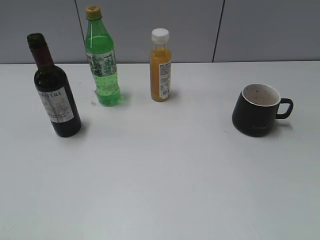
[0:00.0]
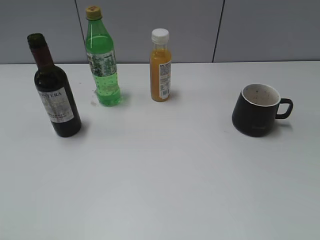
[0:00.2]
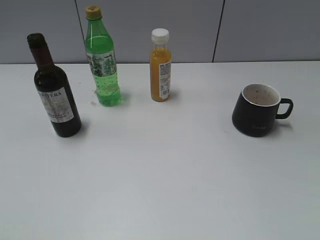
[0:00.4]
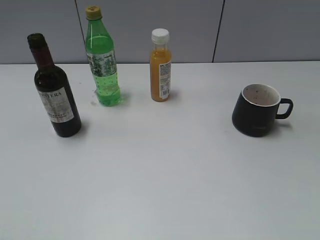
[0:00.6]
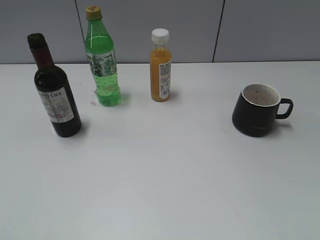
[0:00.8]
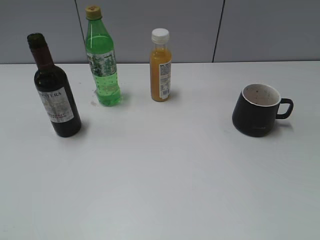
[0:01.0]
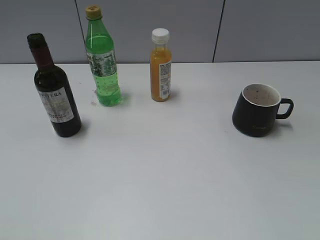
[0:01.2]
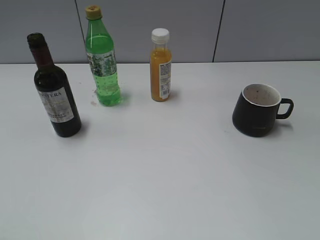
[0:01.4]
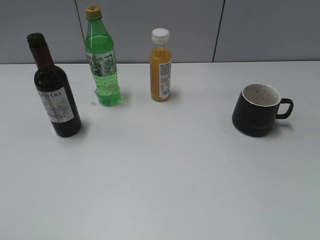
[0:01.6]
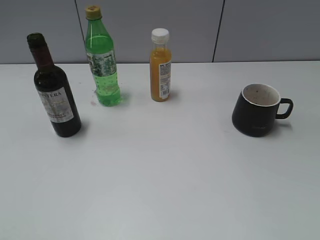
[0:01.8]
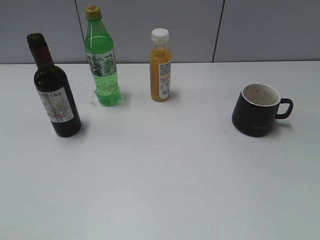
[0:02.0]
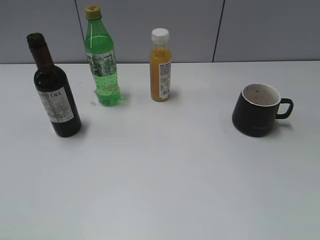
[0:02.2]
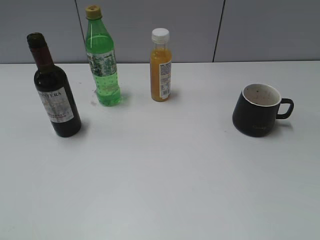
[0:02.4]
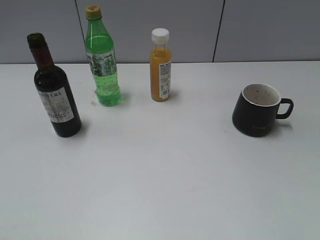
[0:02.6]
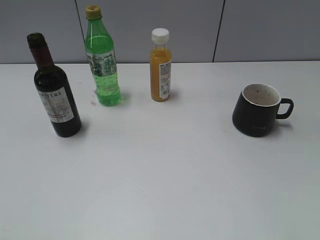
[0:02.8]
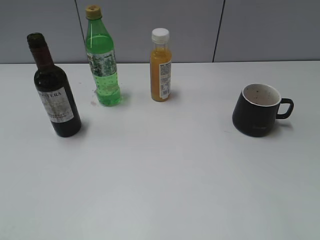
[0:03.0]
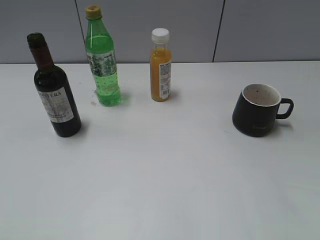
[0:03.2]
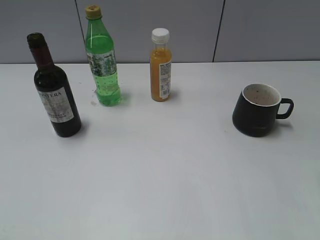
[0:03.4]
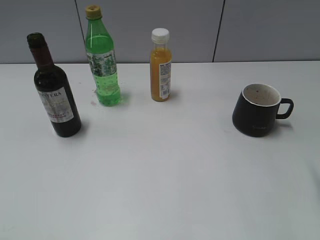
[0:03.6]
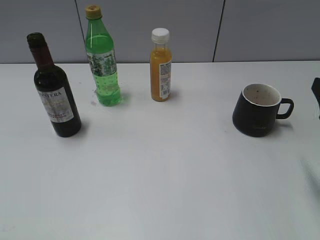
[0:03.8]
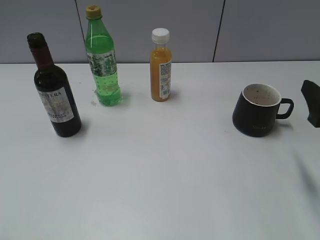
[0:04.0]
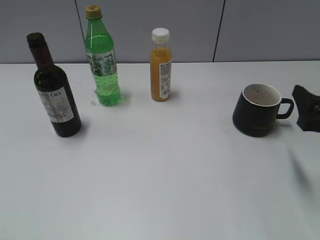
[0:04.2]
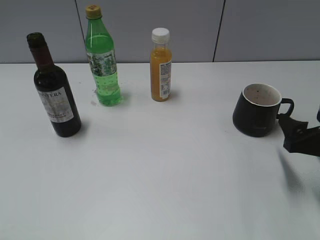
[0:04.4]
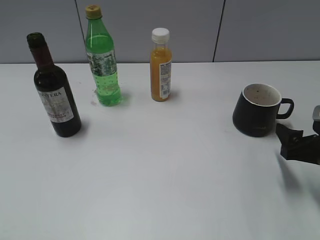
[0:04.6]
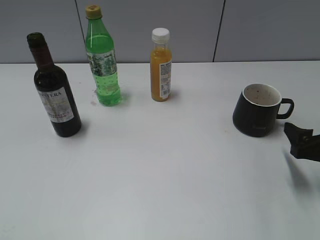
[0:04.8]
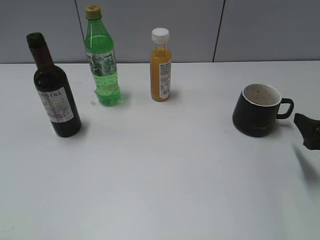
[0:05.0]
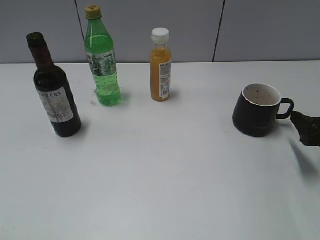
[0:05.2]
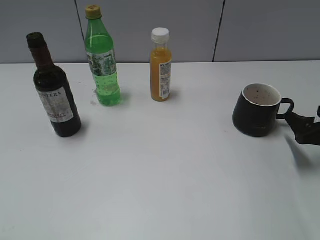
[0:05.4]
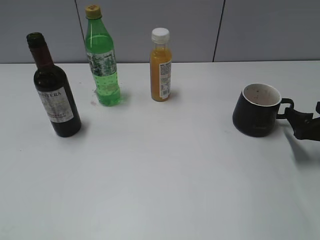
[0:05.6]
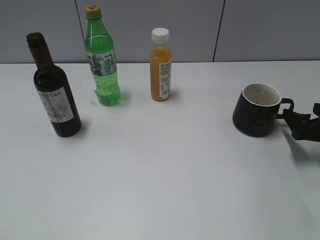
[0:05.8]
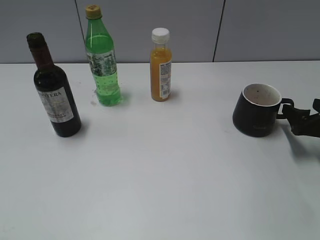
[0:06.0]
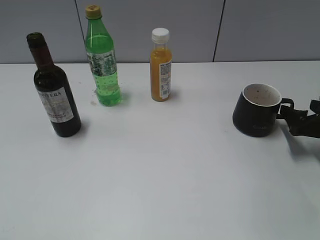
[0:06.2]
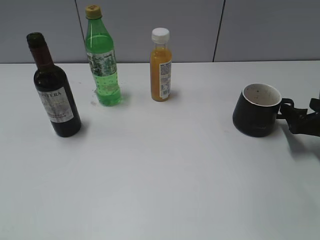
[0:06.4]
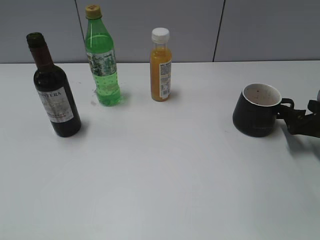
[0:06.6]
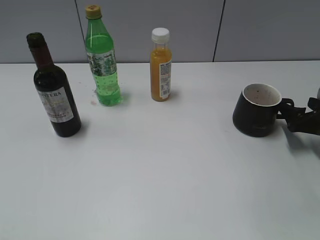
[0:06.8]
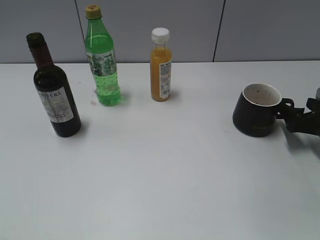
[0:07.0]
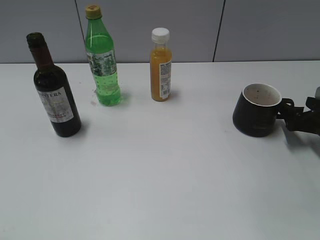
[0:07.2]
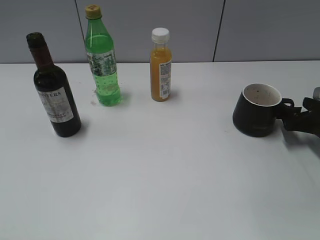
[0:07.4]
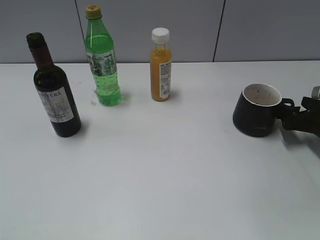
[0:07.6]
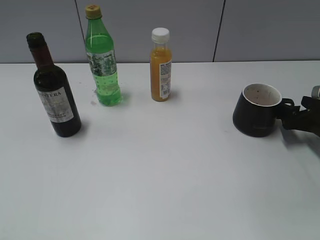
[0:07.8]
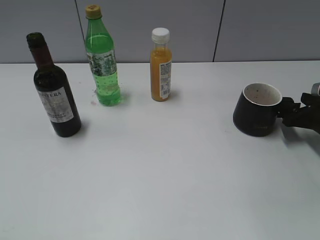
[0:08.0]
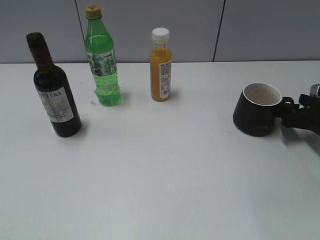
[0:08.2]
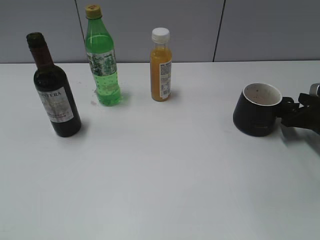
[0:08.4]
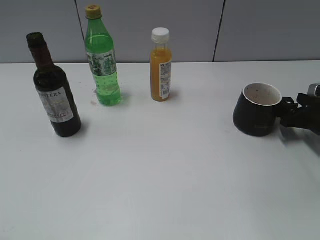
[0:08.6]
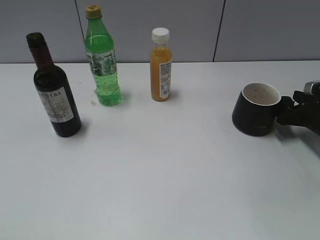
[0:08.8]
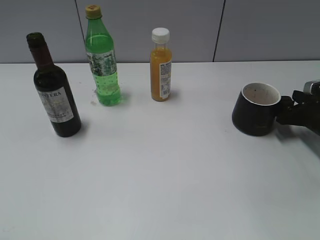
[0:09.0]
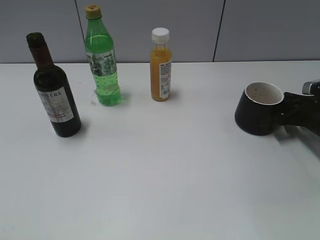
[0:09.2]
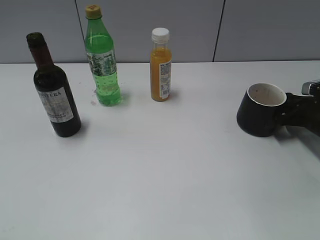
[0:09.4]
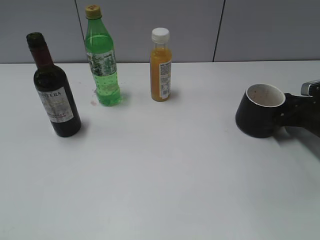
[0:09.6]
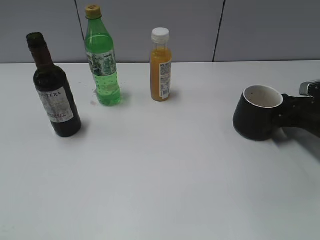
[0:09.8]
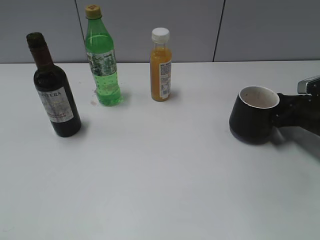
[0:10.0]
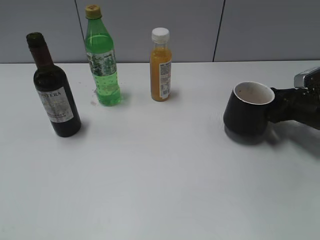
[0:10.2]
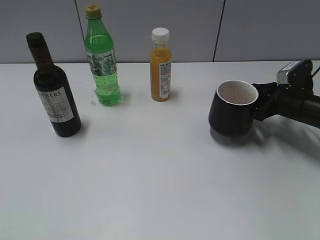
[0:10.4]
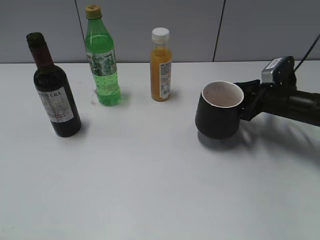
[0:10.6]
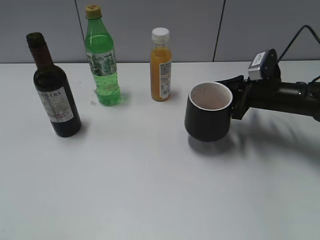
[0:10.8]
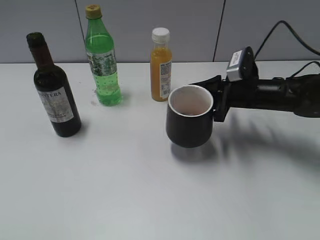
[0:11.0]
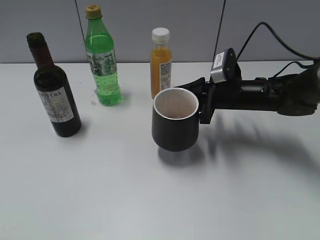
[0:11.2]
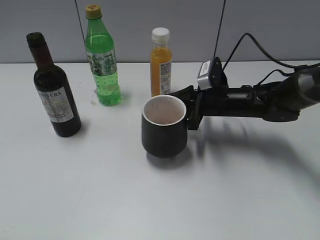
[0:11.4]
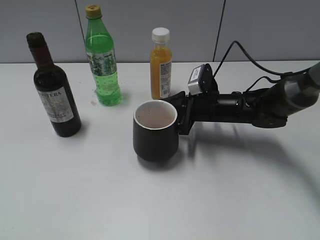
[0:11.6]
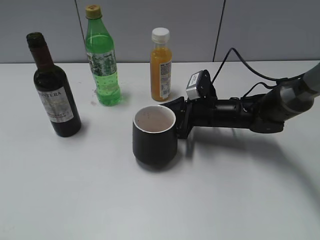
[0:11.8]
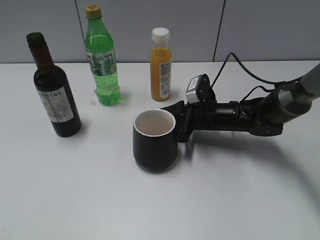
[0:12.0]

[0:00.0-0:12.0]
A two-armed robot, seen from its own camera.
Step, 0:03.8 to 0:09.2: Grasp the black cup with right gripper.
0:03.0 to 0:04.4: The right gripper travels downward and forward by roughly 20 cm.
0:04.4 to 0:06.0: The right gripper is displaced forward and to the right by approximately 10 cm.
0:06.0 to 0:09.0: The grippers stay close to where they were, moving slightly.
0:09.0 to 0:10.4: The right gripper shifts about 5 cm to the left, and closes up.
0:10.4 to 0:12.0: The right gripper shifts roughly 15 cm to the left.

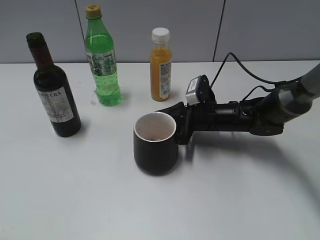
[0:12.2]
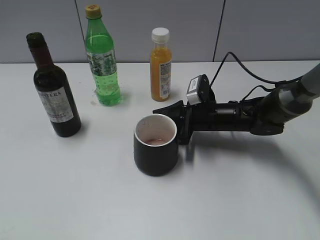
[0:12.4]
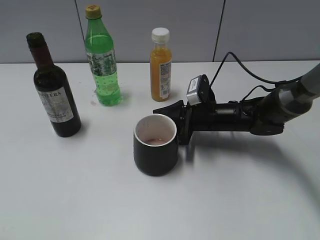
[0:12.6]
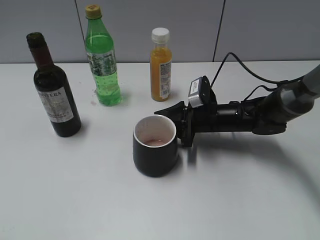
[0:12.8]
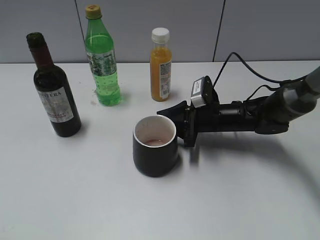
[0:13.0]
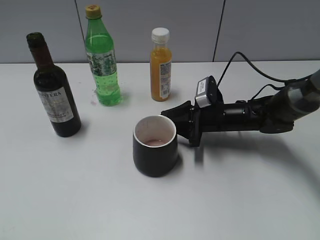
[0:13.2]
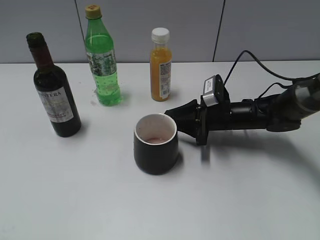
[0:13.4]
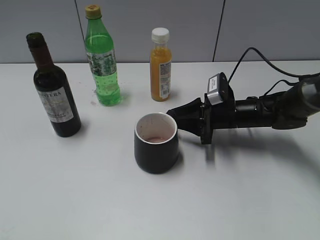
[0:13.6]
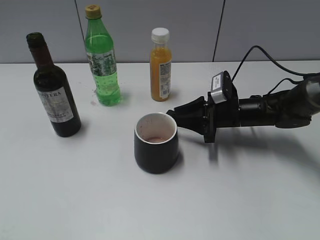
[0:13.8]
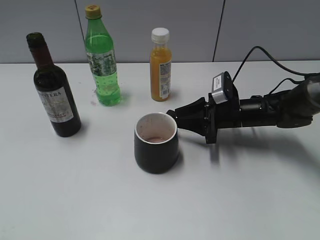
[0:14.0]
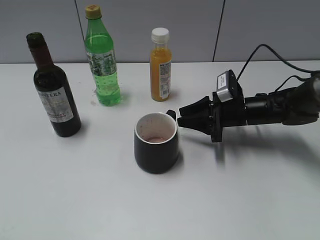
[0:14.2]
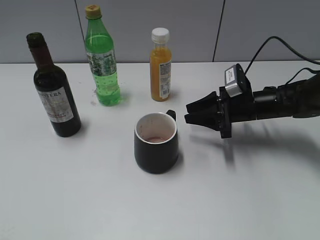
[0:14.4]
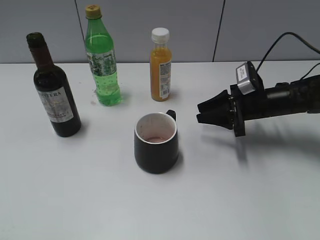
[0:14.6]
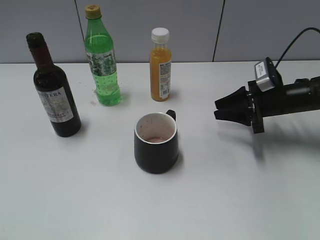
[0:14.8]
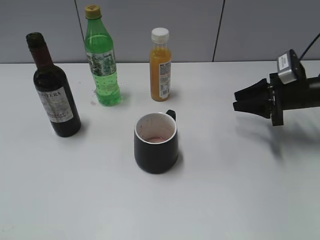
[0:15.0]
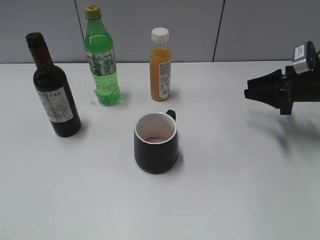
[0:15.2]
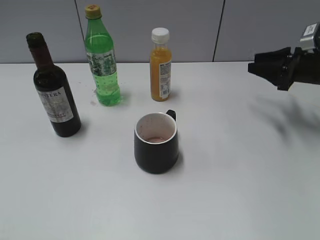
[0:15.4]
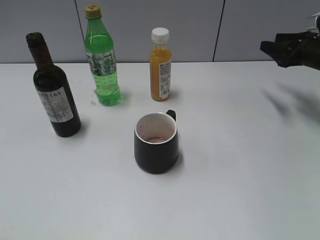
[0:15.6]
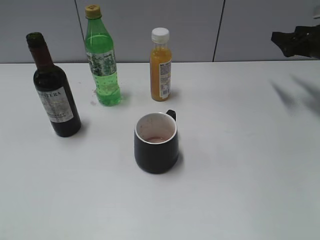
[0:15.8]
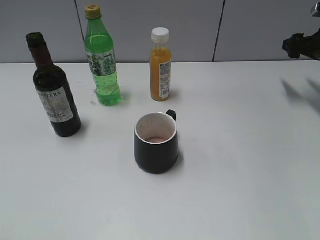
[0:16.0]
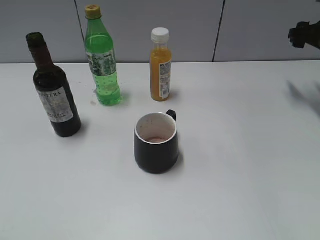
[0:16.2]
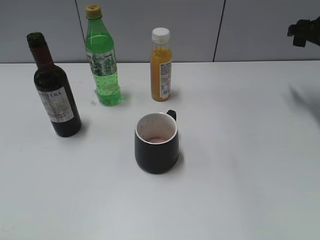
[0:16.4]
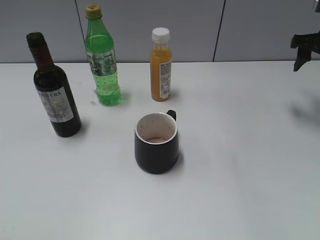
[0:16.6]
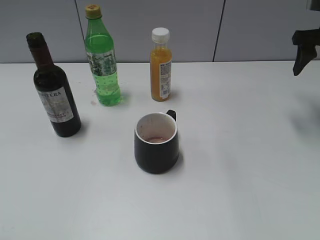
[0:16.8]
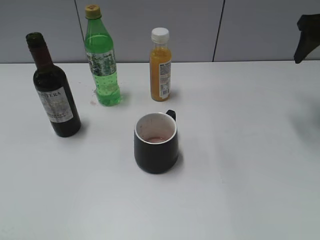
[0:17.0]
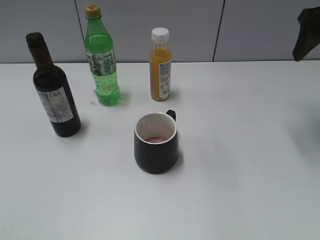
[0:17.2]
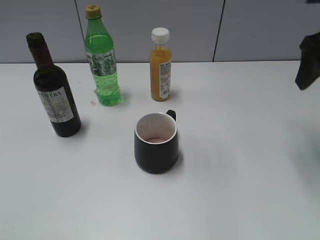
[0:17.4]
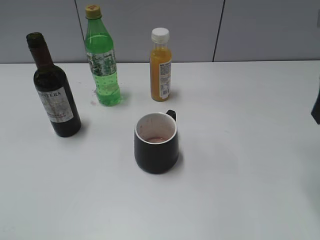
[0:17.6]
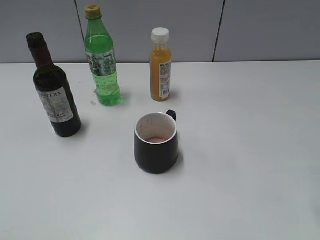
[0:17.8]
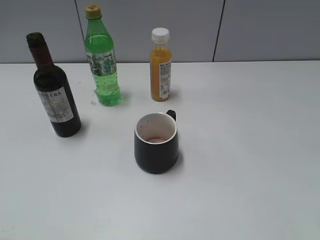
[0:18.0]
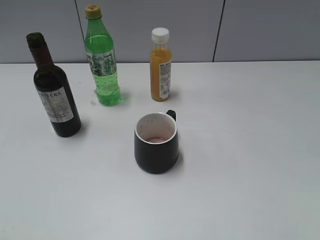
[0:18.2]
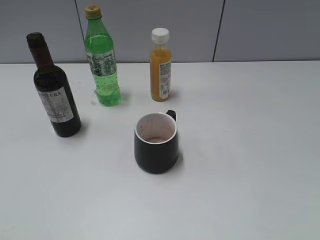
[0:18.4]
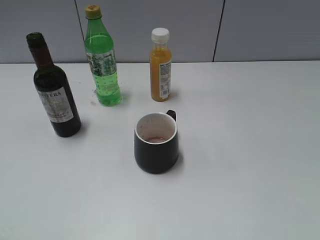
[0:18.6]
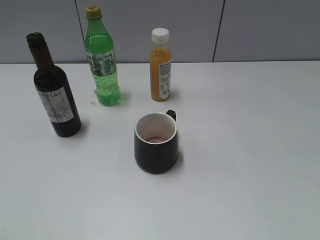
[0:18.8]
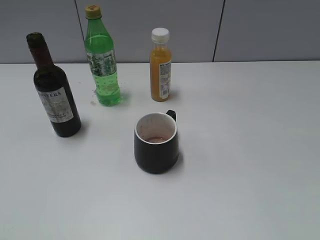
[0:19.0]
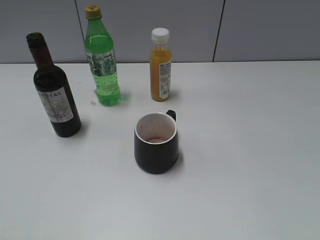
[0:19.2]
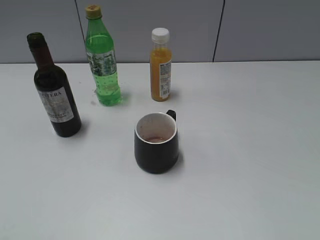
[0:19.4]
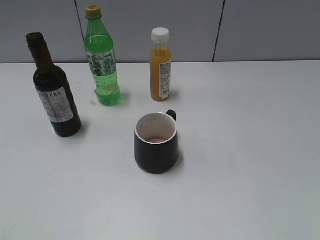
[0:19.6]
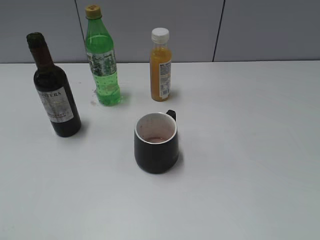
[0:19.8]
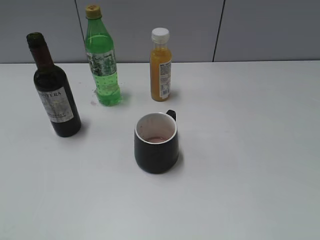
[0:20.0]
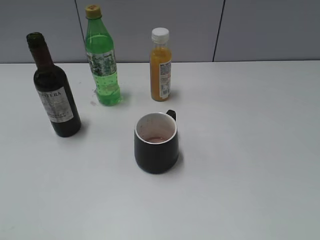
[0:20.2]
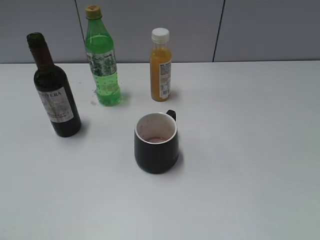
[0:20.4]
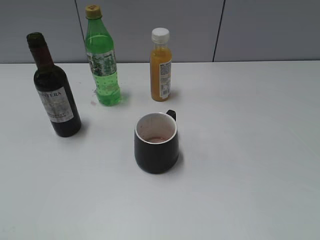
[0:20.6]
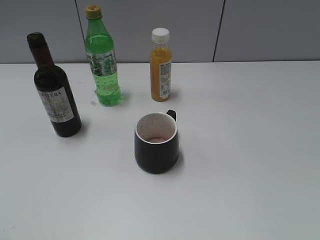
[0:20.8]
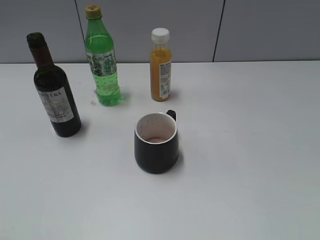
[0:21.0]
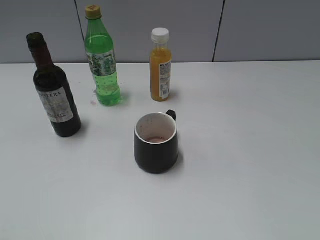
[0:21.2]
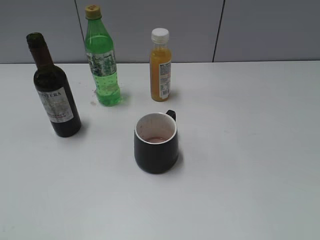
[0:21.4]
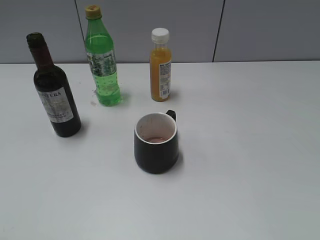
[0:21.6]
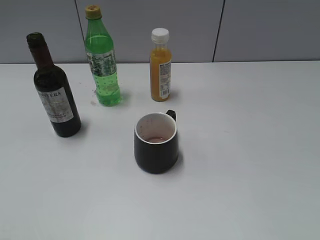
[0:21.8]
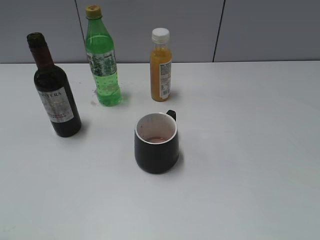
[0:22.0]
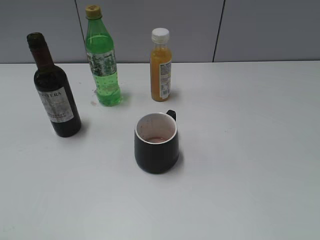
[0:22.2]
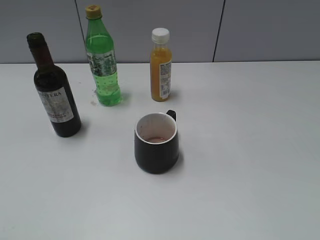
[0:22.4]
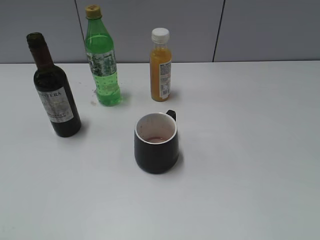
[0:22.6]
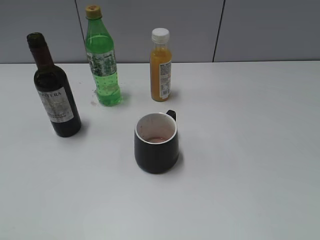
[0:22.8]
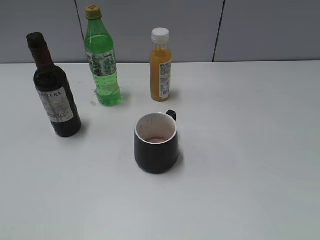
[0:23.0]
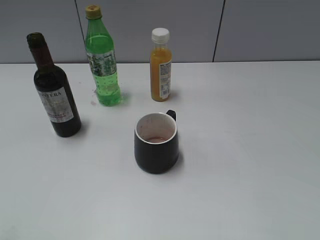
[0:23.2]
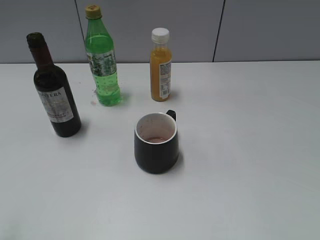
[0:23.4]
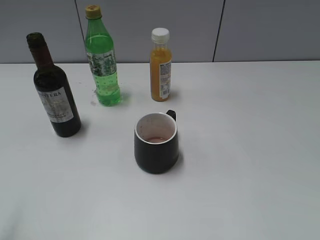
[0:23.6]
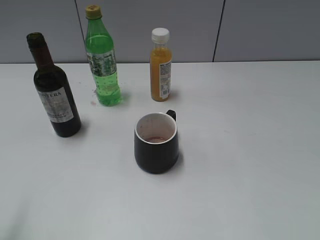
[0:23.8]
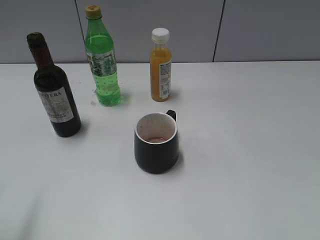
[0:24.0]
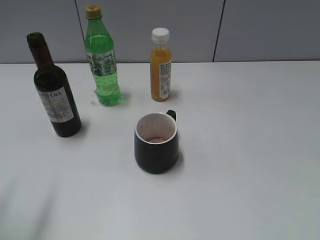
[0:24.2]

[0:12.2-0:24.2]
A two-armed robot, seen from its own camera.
0:12.2 to 0:13.8: The right gripper opens its fingers.
0:13.8 to 0:15.2: The right gripper shifts about 15 cm to the right.
0:15.2 to 0:16.6: The right gripper heads upward, covering some 10 cm, and opens.
0:16.6 to 0:18.2: The right gripper heads backward, covering about 30 cm.
0:19.8 to 0:21.2: The two grippers keep their place.
0:22.6 to 0:24.2: The left gripper travels forward by roughly 15 cm.
